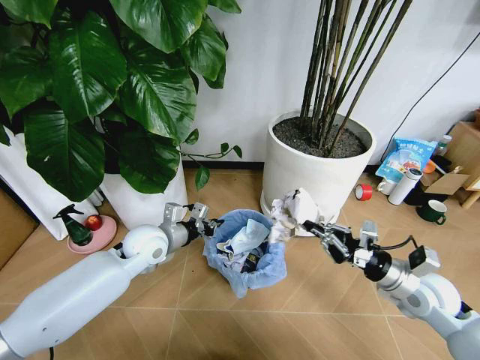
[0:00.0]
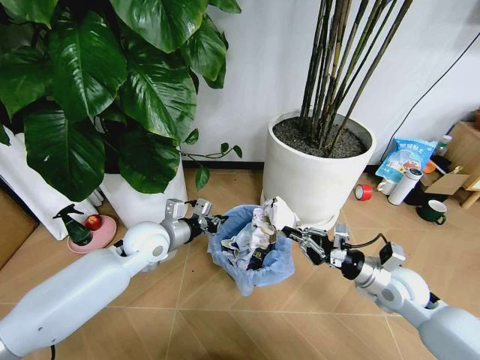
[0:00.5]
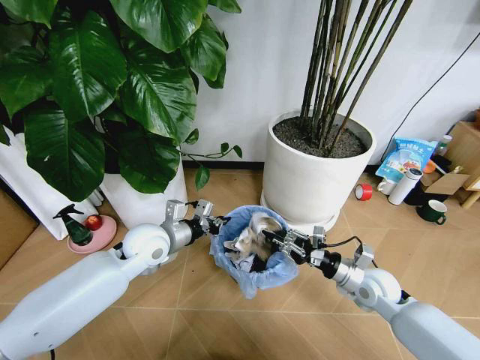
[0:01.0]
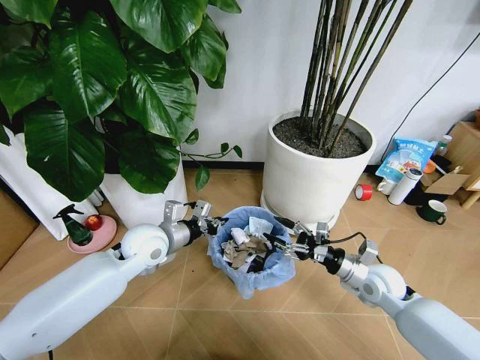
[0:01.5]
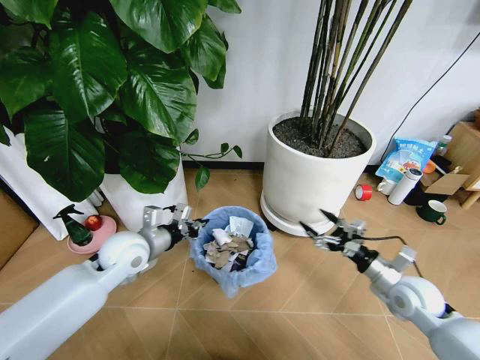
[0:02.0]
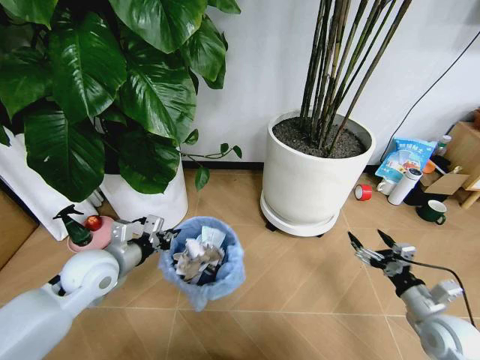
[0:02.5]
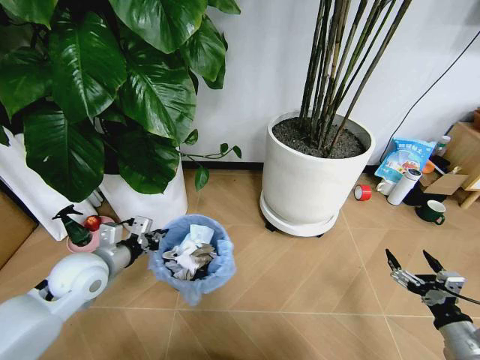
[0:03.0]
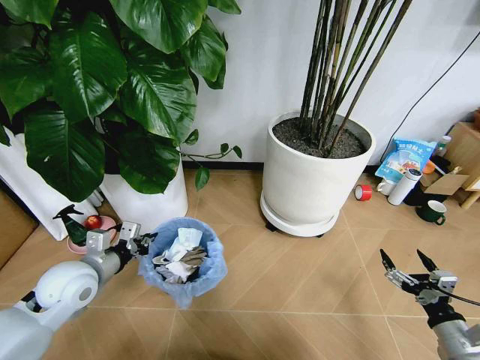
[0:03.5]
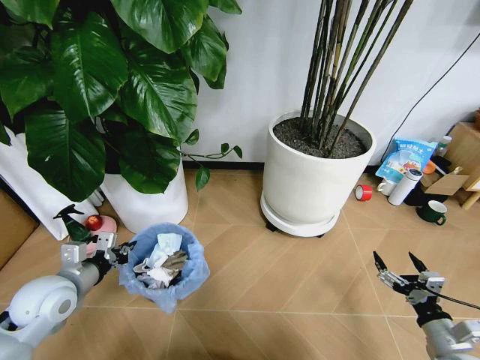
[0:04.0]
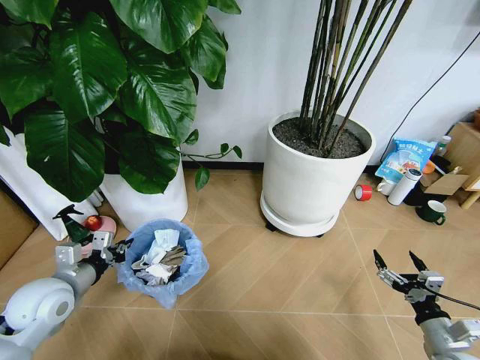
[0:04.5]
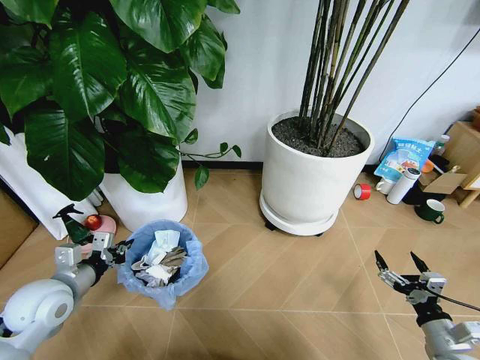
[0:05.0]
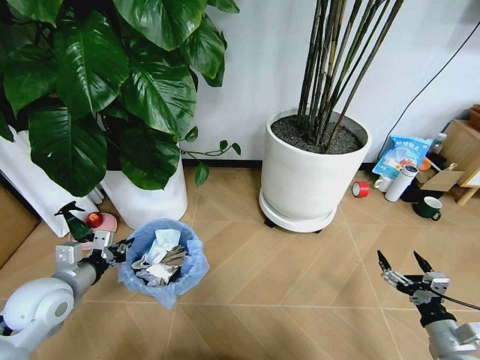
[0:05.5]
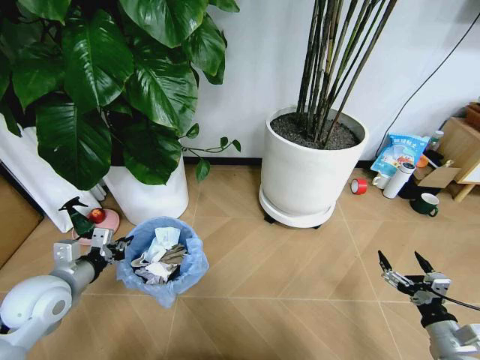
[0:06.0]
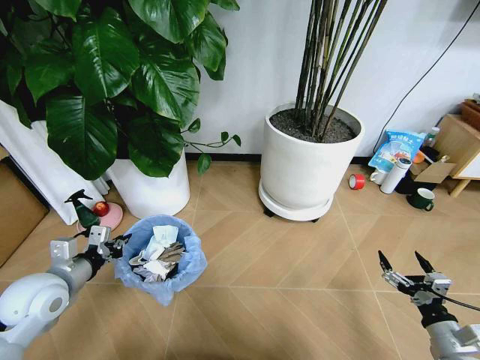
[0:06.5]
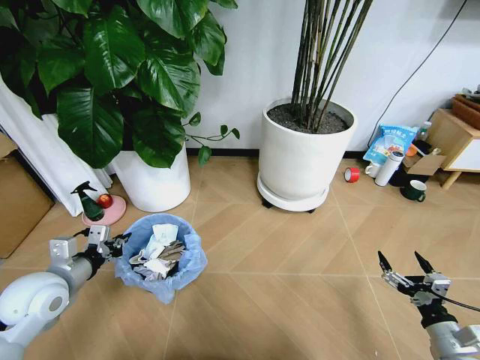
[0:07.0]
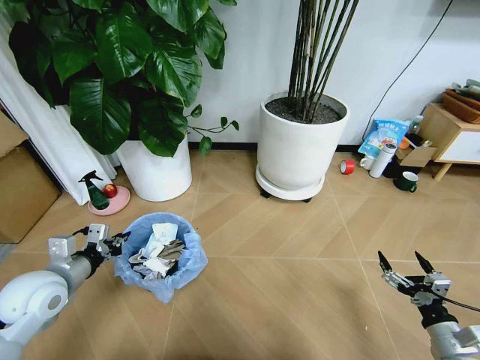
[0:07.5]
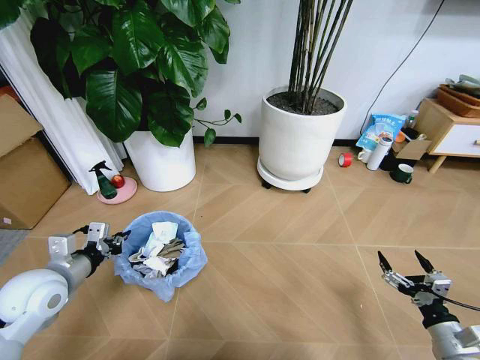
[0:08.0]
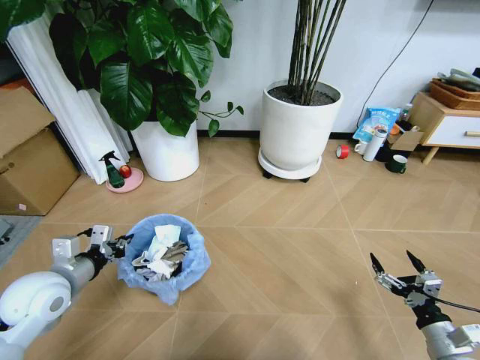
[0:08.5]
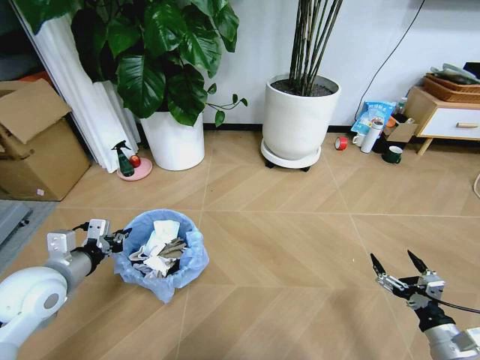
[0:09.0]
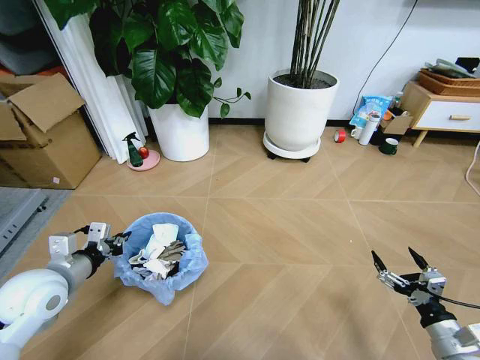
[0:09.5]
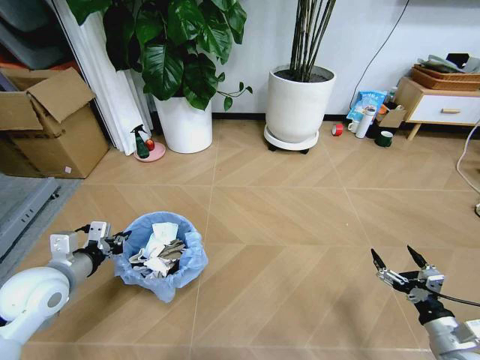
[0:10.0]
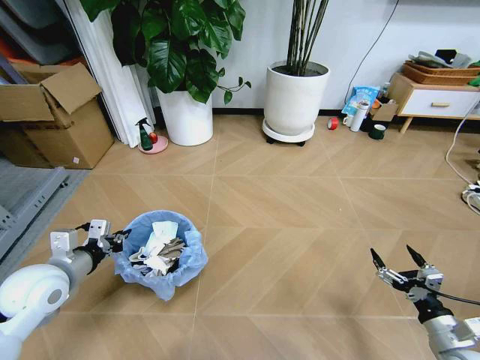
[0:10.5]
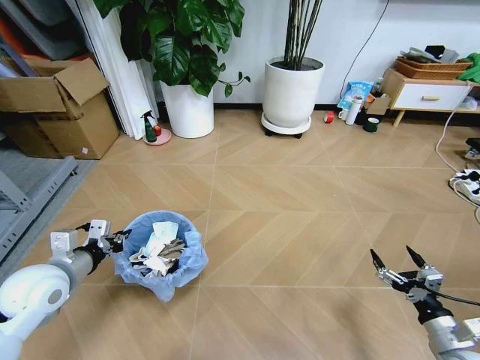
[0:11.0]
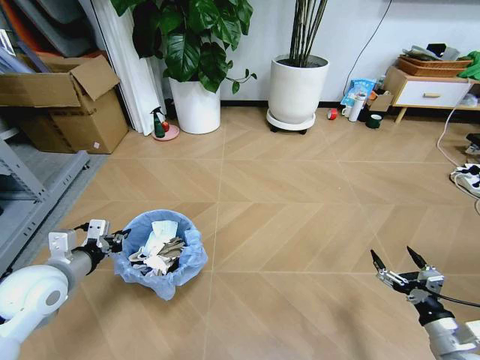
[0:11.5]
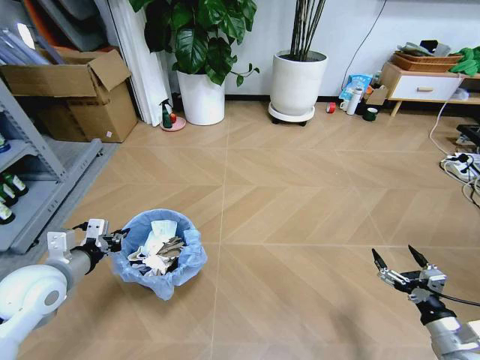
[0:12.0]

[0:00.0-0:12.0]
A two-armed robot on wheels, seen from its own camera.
Task of the whole recording: Pick up the trash bin and place the garbage on the floor into it.
0:00.0 to 0:02.0: The right gripper is displaced downward by some 5 cm, and opens. Meanwhile the left gripper changes place by roughly 5 cm.
0:02.0 to 0:04.0: The left gripper travels to the left and backward by some 15 cm. The right gripper moves backward, some 15 cm.

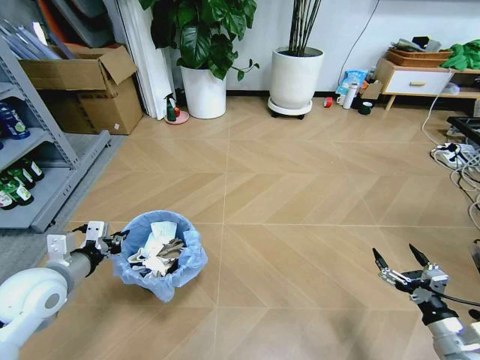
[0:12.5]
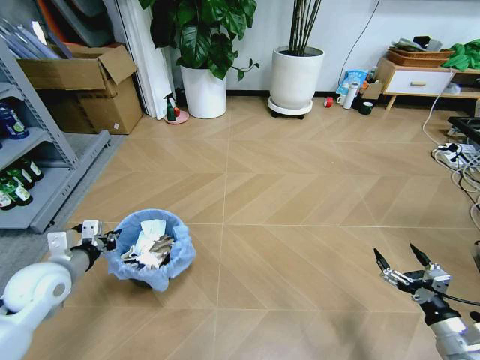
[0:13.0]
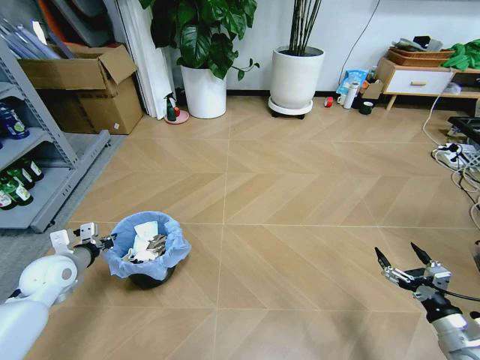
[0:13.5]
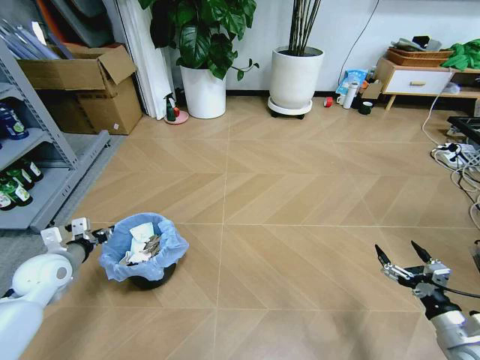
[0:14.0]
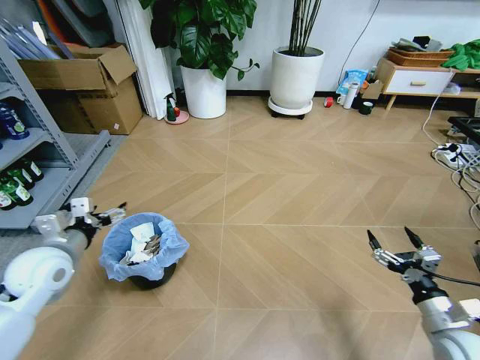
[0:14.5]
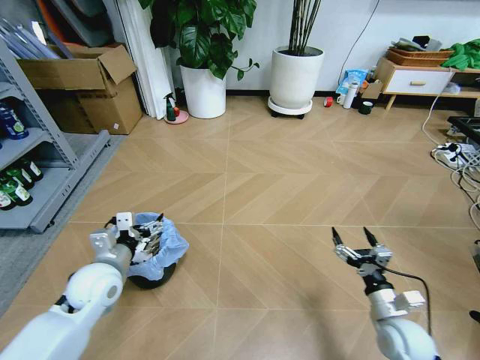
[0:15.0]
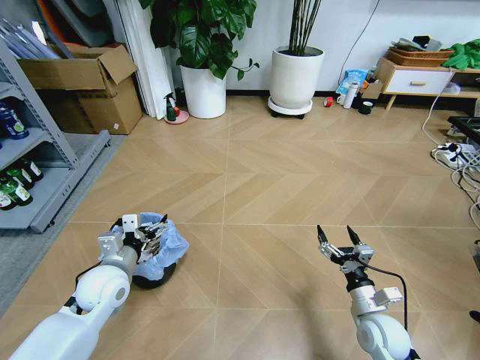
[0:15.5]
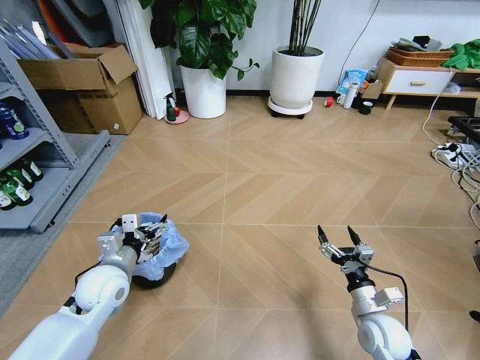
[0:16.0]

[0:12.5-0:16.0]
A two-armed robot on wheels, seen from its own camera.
Task of the whole recording: Pick up the trash bin and place the garbage on the floor into it.
0:12.5 to 0:14.5: The left gripper opens its fingers.
0:14.5 to 0:16.0: The right gripper shifts some 15 cm to the left, downward and forward. Meanwhile the left gripper goes about 10 cm to the right and downward.
